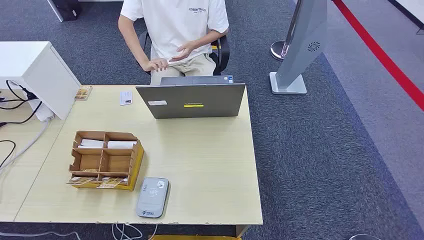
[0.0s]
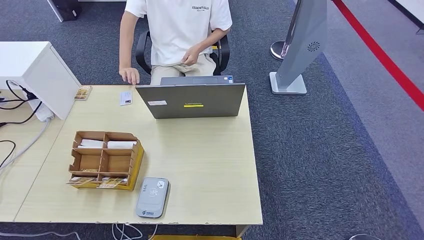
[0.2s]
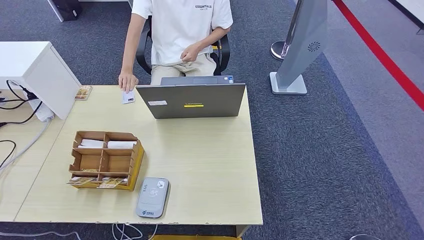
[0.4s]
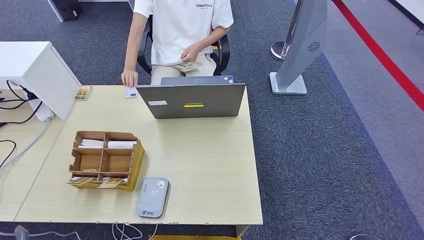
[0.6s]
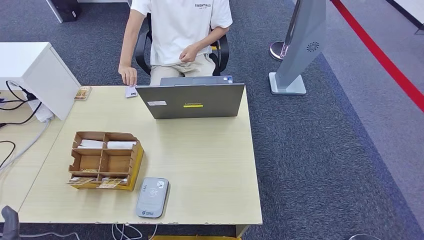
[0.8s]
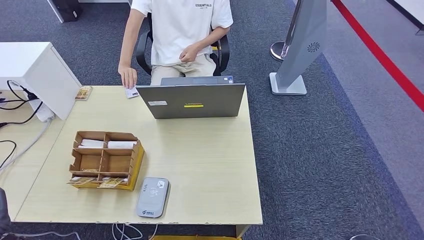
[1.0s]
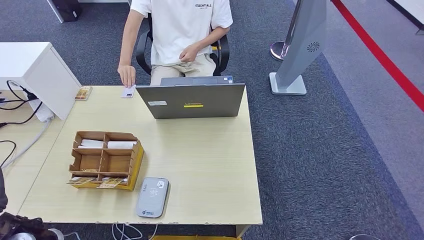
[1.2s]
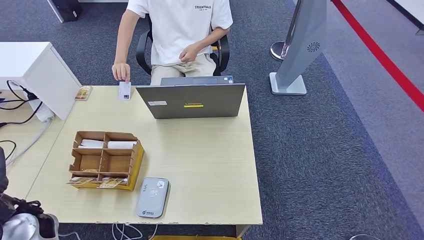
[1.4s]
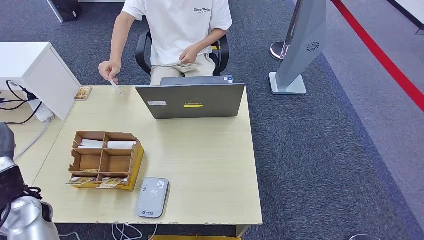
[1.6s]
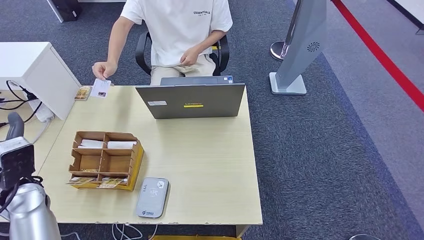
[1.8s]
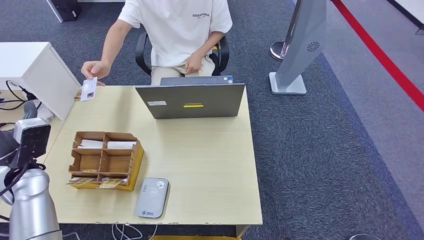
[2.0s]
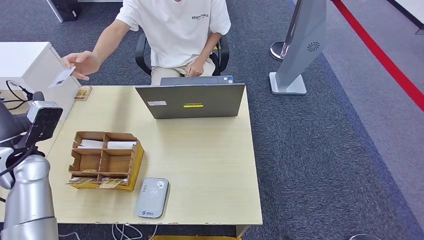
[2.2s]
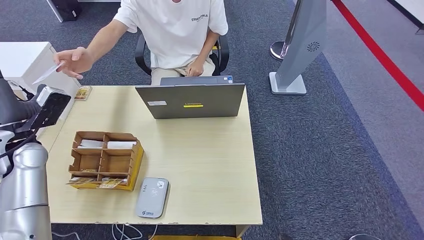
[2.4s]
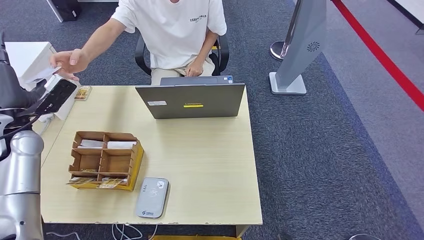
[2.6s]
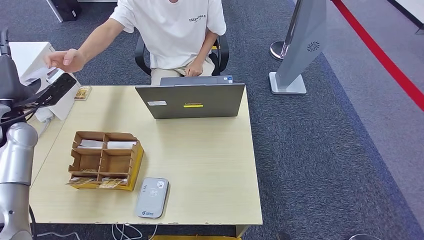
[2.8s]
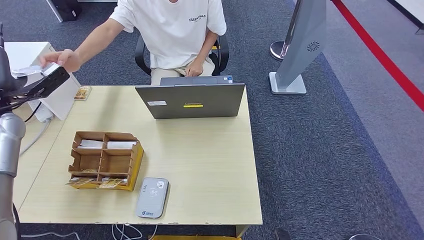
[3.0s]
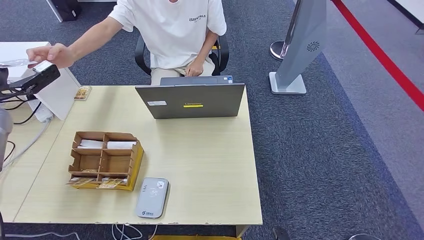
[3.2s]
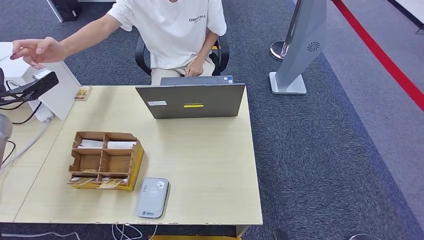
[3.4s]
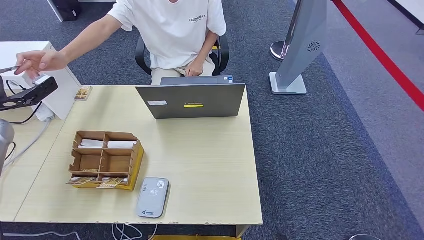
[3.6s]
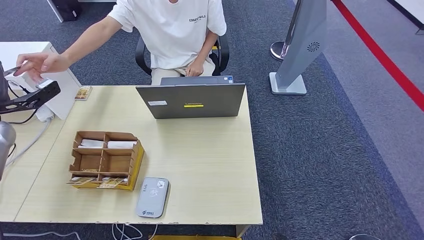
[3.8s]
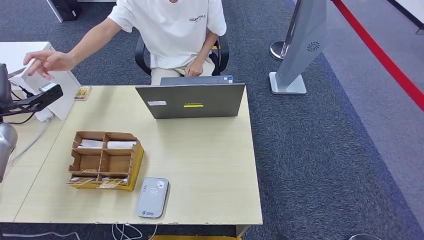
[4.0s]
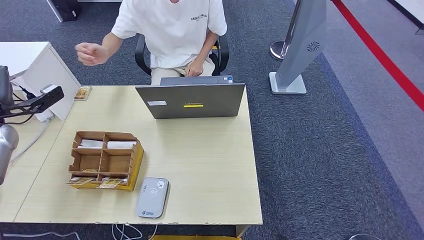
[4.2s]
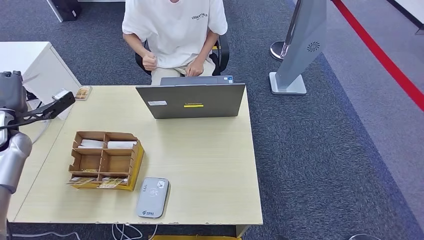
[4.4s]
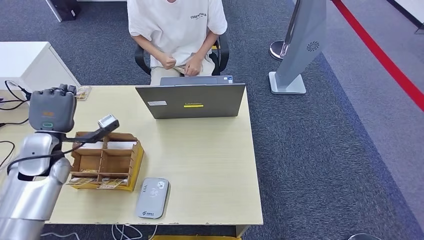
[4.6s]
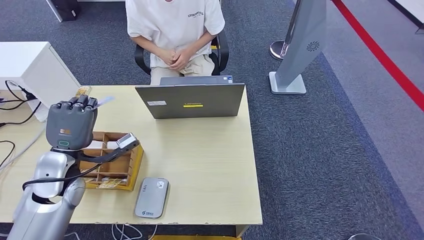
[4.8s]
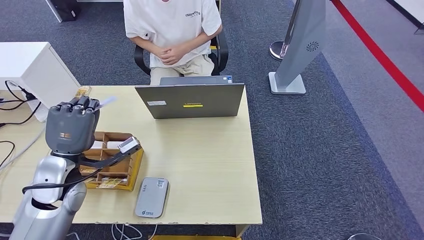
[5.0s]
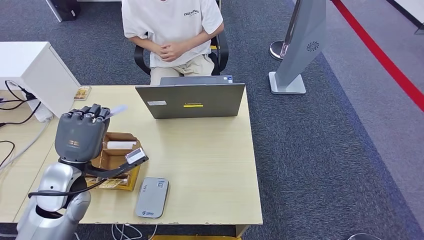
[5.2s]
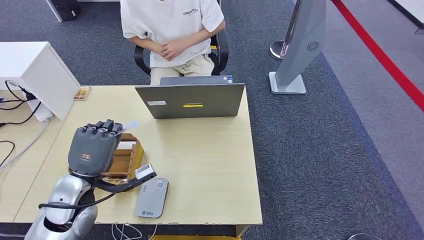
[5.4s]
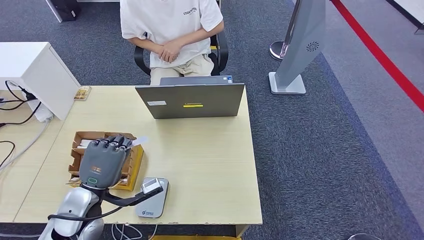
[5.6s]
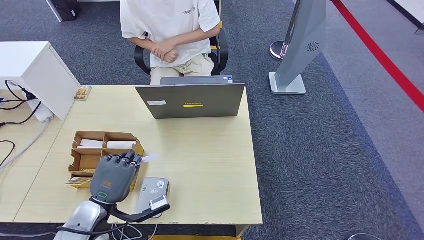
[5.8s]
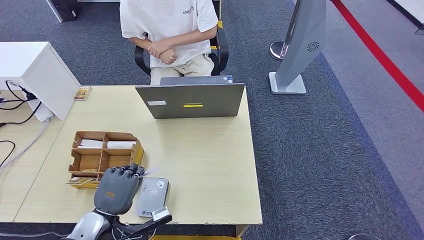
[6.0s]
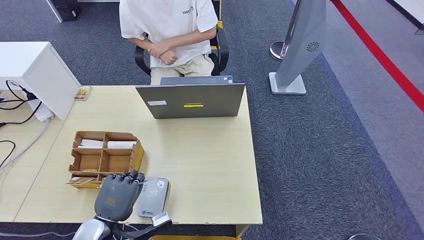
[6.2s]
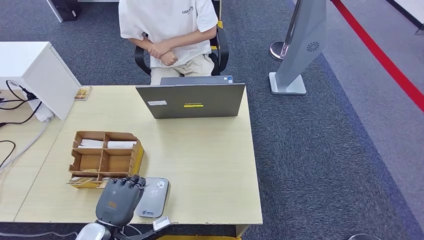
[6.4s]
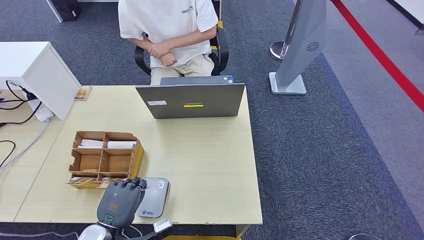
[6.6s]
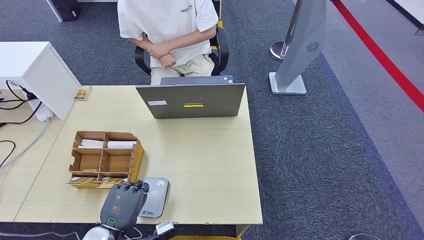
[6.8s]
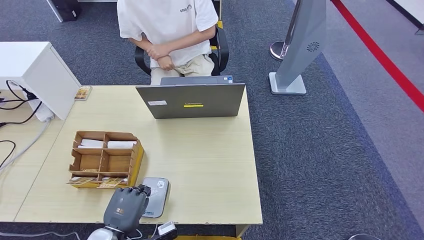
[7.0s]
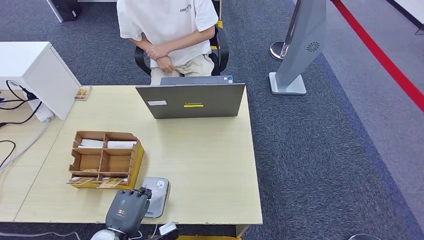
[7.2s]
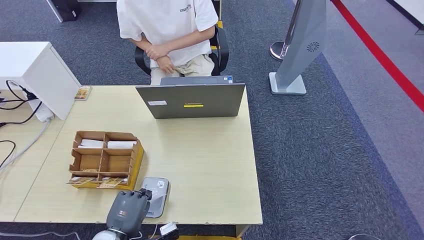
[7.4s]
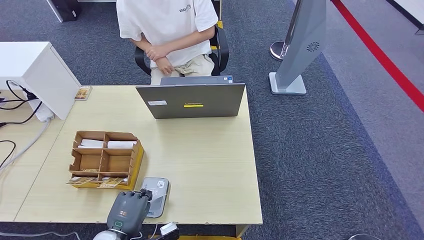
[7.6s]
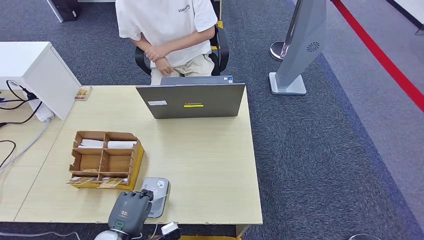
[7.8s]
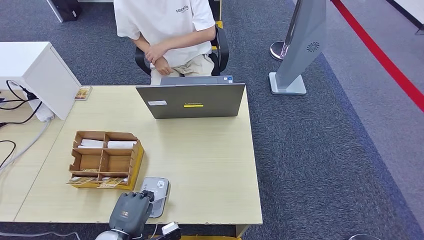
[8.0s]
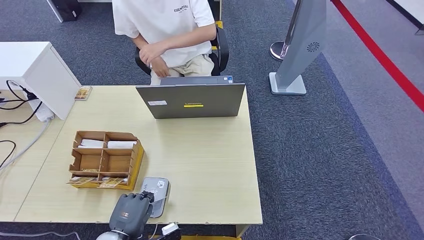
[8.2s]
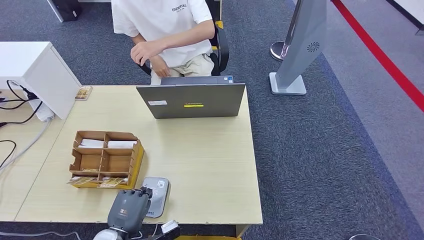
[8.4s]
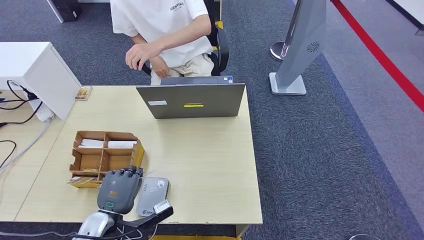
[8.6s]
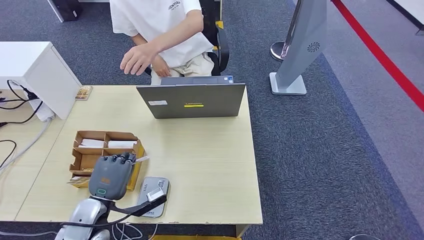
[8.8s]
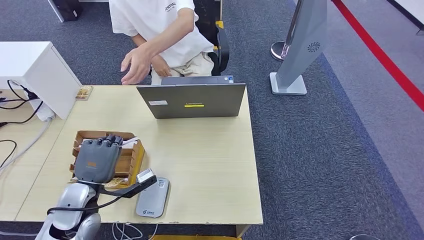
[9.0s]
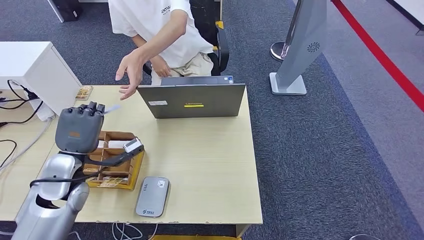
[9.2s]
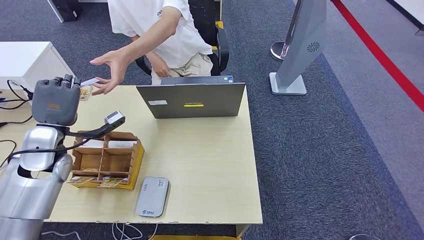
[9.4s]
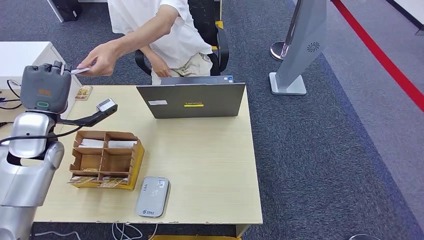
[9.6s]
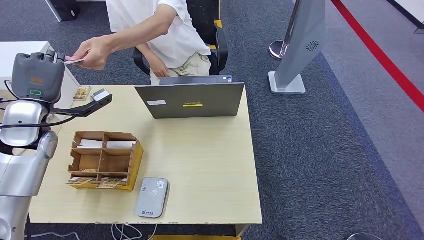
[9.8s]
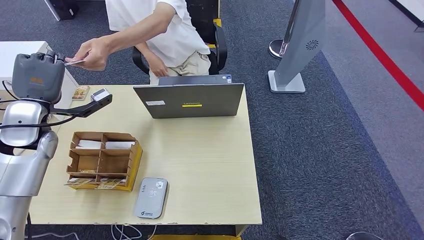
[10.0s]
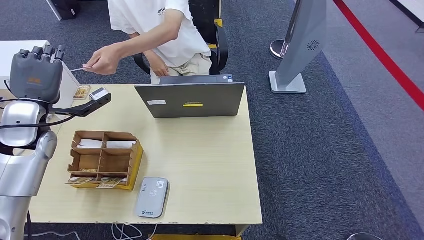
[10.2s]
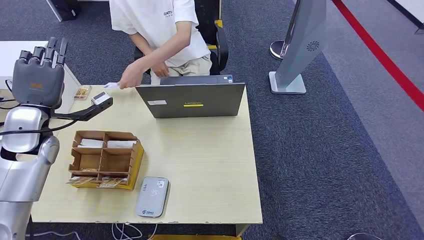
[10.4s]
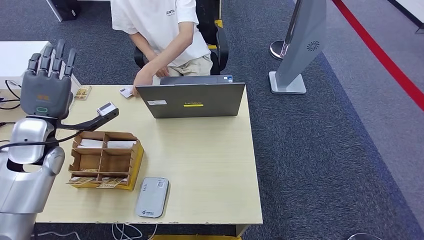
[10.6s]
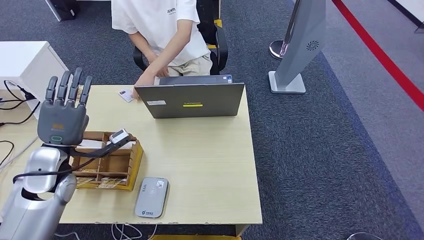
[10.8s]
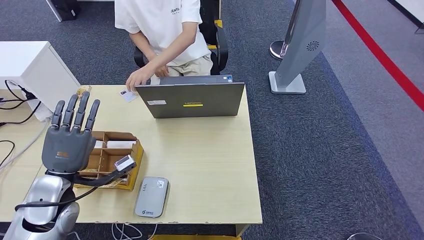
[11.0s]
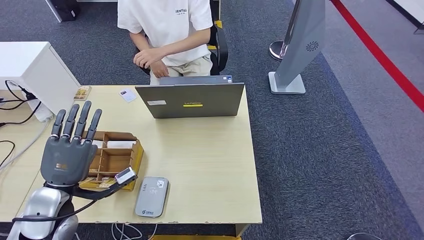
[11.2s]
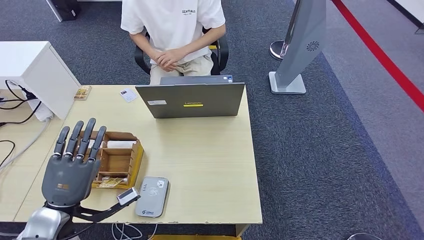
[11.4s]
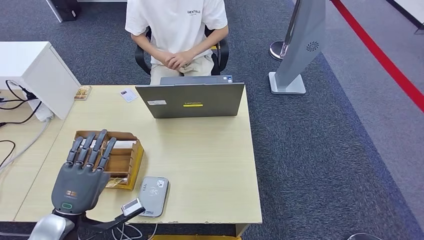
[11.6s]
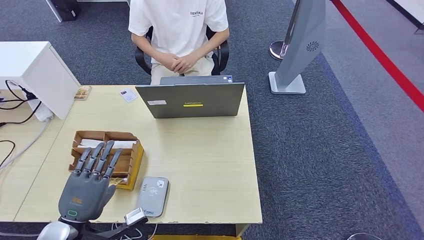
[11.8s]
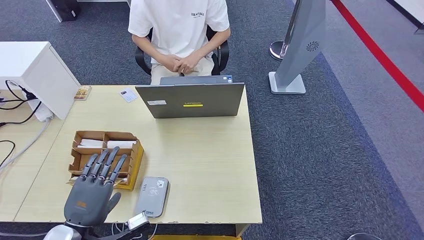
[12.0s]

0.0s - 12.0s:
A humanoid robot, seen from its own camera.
Step, 0.0s - 3.2s: Take the ID card from the person's hand.
Step, 3.4s - 8.0s: Place the ID card on the card reader.
Step, 8.4s - 10.8s: Hand the ID card to the person.
1.6s - 3.0s: The left hand is displaced forward and upward by some 20 cm.
3.0s - 4.4s: The left hand moves downward, approximately 5 cm.
4.4s - 6.0s: The left hand is displaced backward, to the right and downward by about 30 cm.
6.0s - 7.6s: The left hand goes roughly 5 cm downward.
7.6s - 9.0s: The left hand heads forward and upward, covering some 15 cm.
9.0s - 10.4s: The left hand is displaced upward, forward and to the left by approximately 20 cm.
10.4s - 12.0s: The left hand is displaced backward and downward by approximately 25 cm.

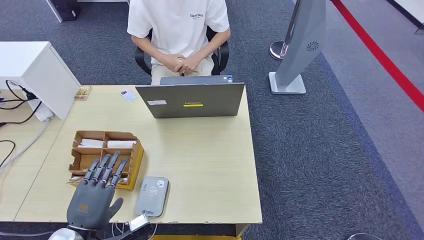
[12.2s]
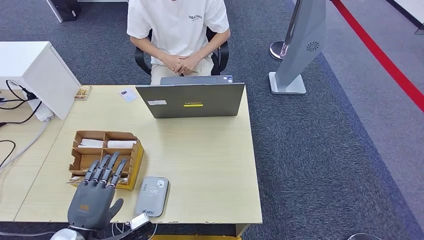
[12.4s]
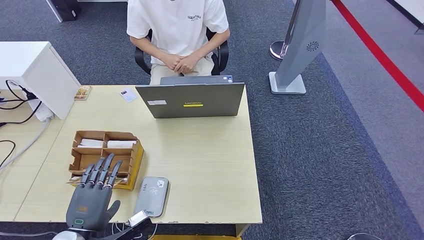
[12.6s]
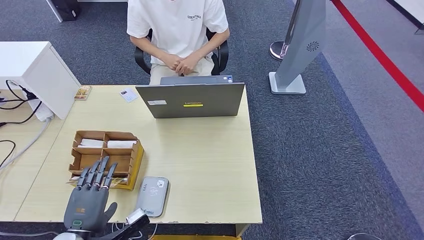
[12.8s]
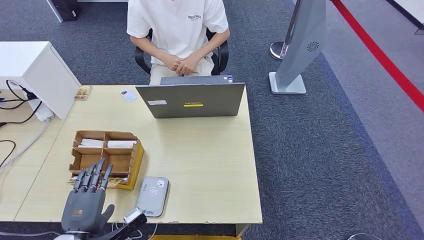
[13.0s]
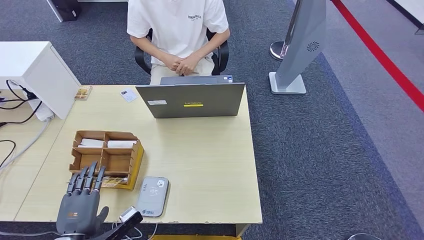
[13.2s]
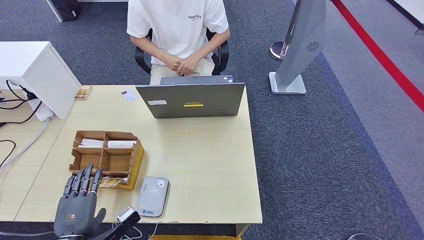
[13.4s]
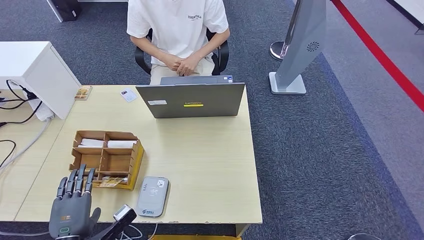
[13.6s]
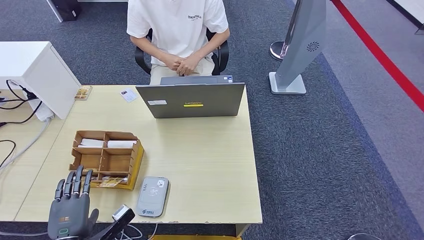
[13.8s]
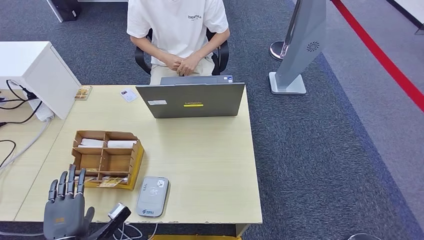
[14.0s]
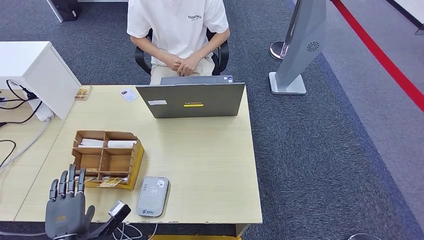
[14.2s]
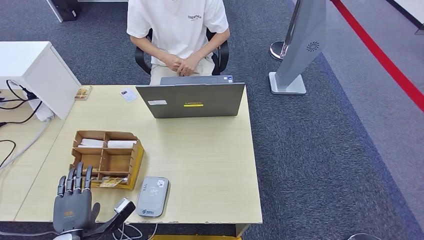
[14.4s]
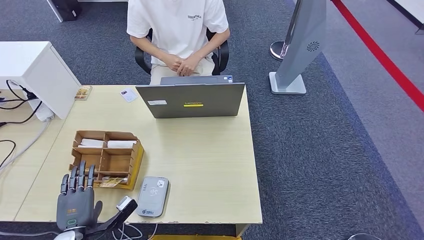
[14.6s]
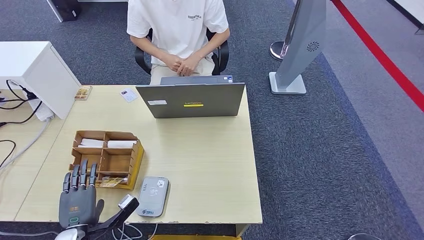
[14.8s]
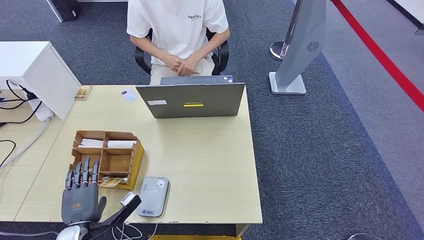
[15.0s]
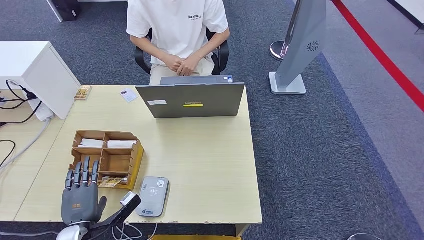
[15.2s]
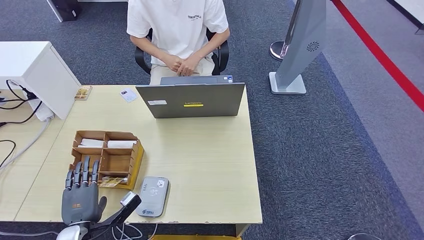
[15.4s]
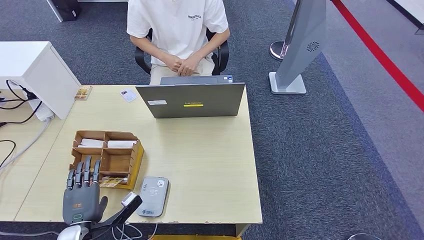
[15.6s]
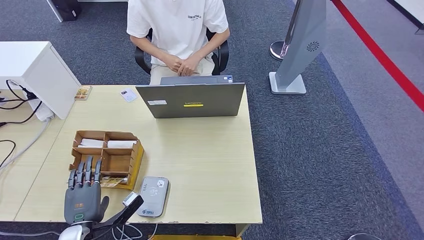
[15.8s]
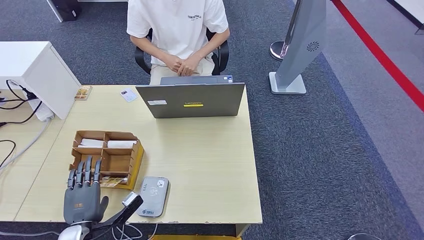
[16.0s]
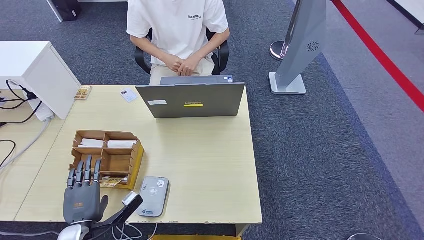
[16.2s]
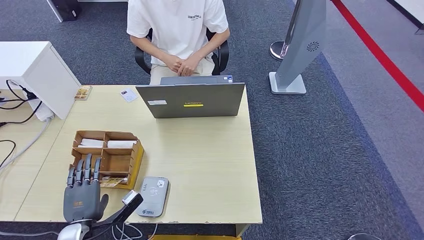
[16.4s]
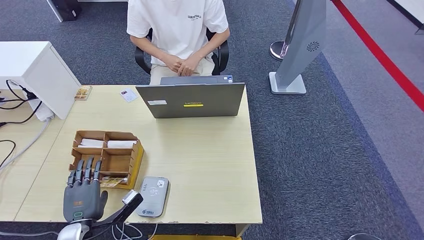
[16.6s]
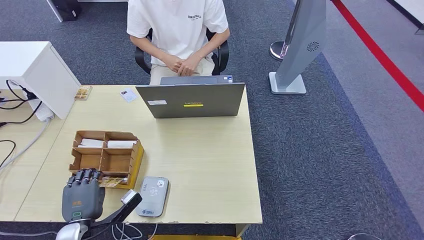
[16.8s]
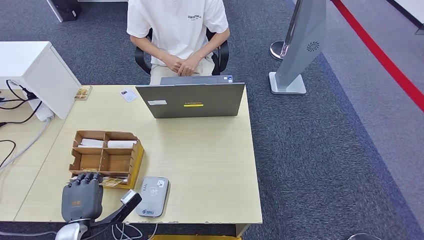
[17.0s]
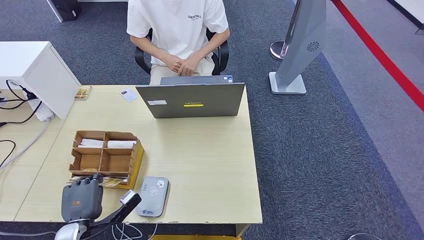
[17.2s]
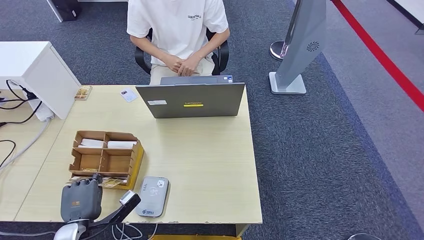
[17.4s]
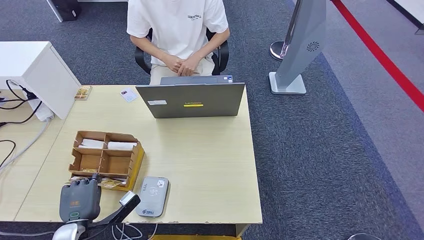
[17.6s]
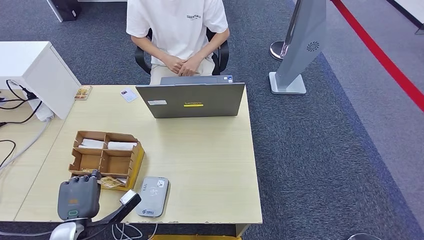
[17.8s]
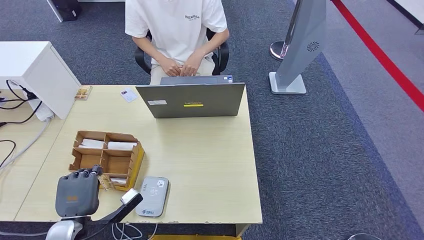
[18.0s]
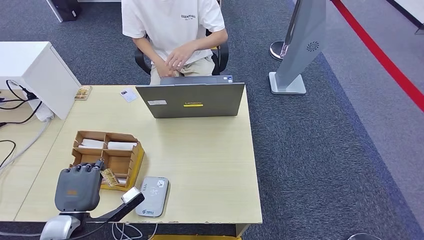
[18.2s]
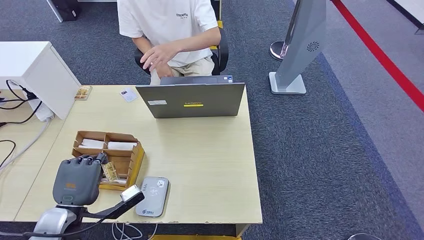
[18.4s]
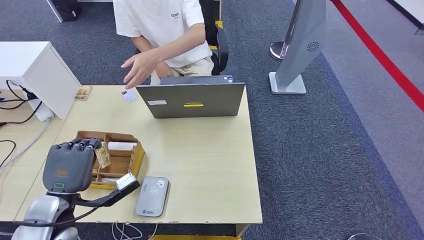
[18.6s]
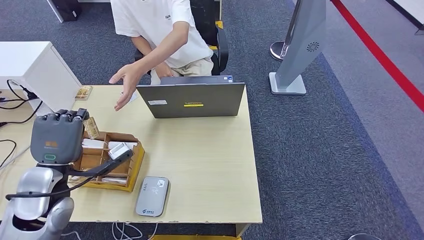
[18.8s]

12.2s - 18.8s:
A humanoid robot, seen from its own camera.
Step, 12.2s - 18.4s: Pick up the room key from the key card box.
12.2s - 13.8s: The left hand travels downward by approximately 5 cm.
13.8s - 15.4s: The hands move only a little.
15.4s - 17.2s: The two hands keep their place.
17.2s - 18.8s: The left hand shifts about 20 cm upward and forward.
